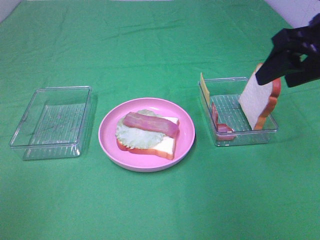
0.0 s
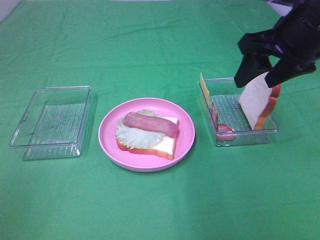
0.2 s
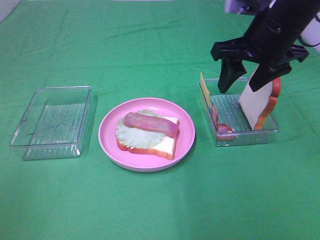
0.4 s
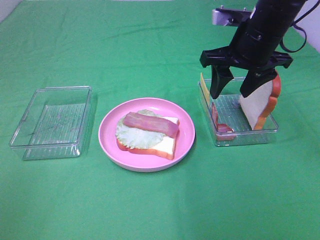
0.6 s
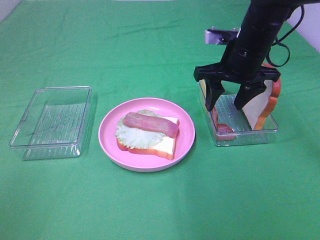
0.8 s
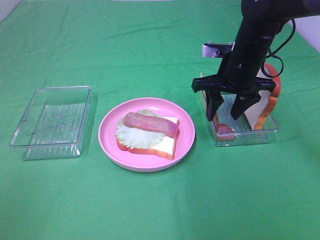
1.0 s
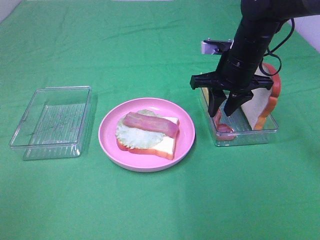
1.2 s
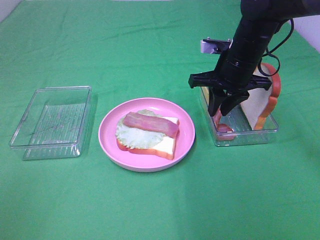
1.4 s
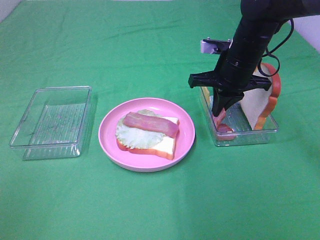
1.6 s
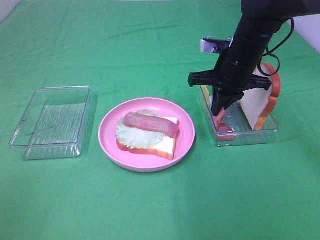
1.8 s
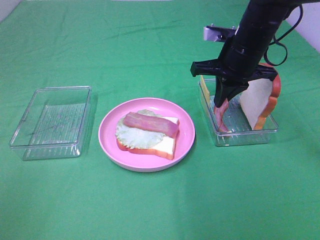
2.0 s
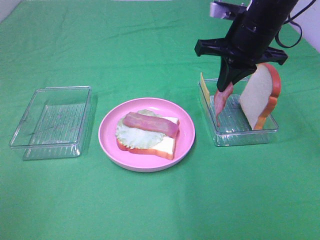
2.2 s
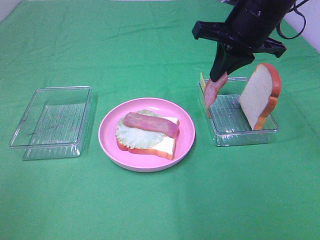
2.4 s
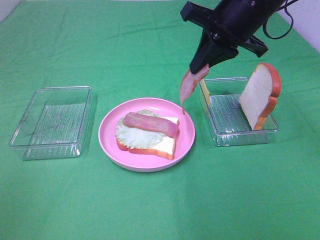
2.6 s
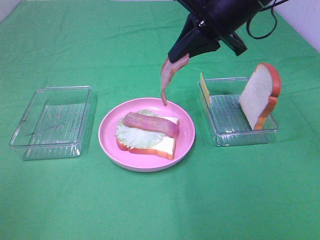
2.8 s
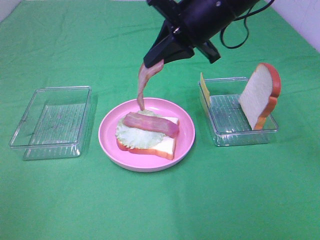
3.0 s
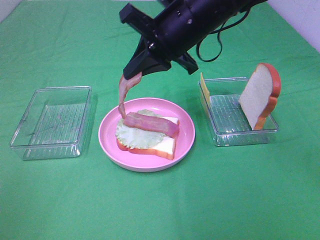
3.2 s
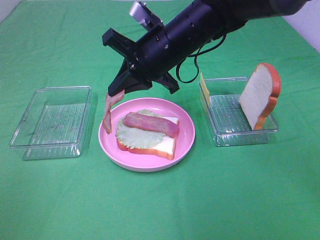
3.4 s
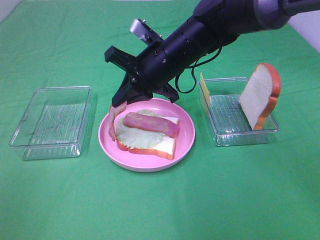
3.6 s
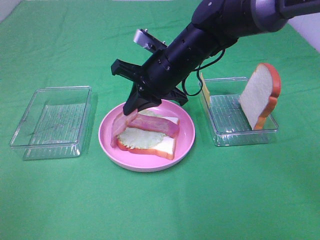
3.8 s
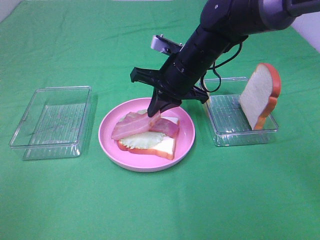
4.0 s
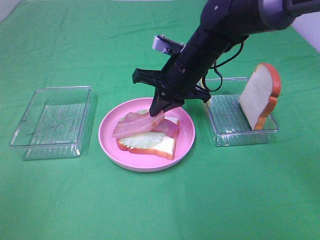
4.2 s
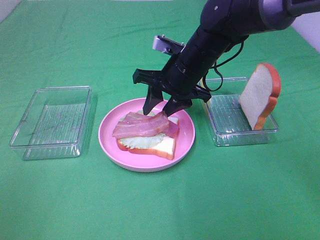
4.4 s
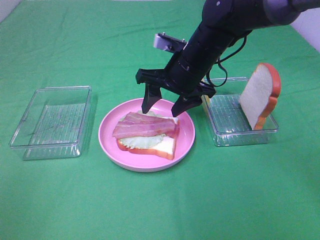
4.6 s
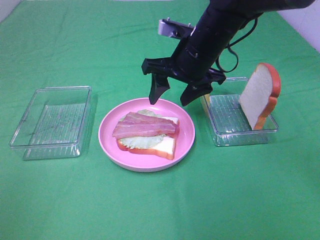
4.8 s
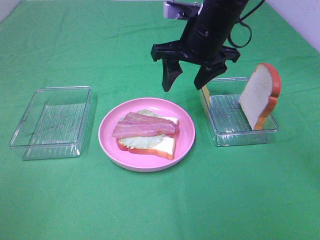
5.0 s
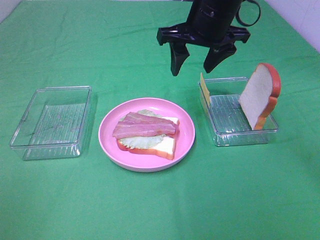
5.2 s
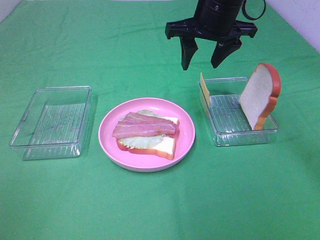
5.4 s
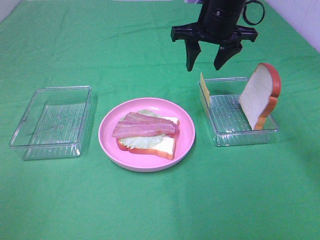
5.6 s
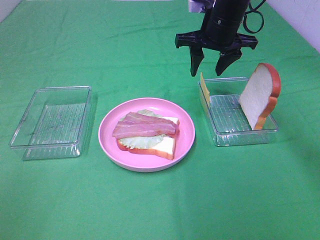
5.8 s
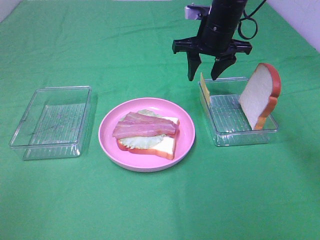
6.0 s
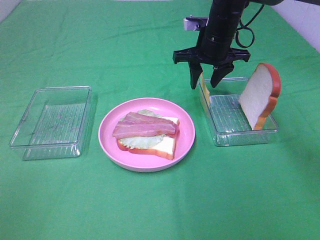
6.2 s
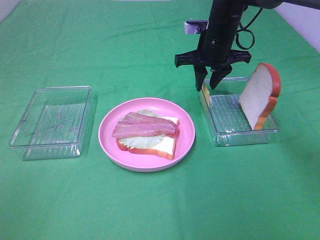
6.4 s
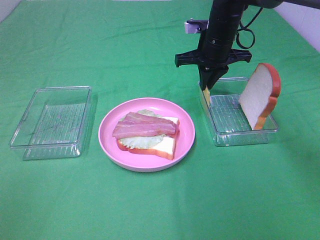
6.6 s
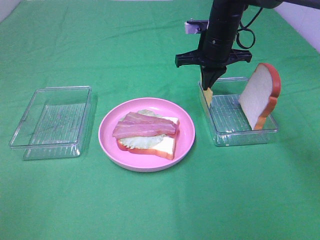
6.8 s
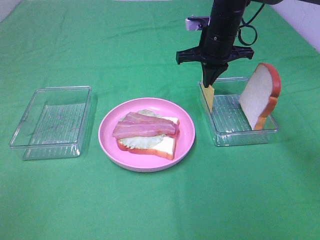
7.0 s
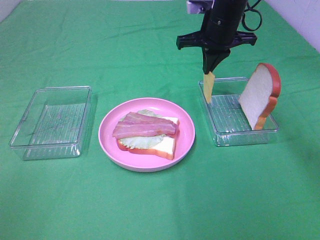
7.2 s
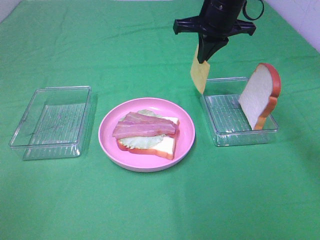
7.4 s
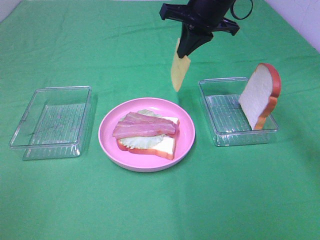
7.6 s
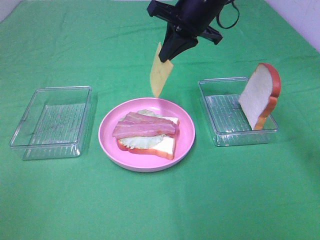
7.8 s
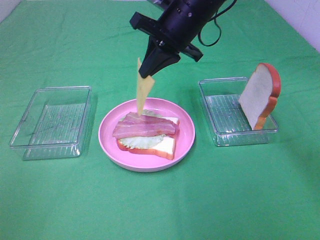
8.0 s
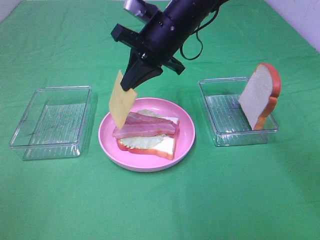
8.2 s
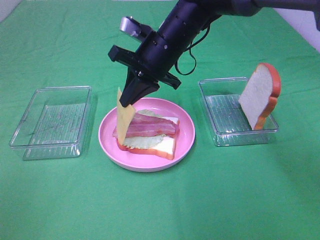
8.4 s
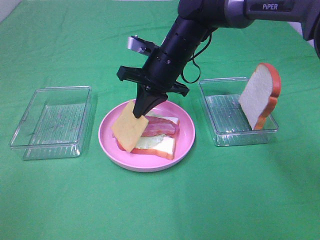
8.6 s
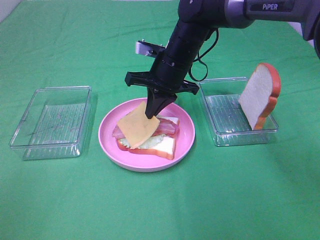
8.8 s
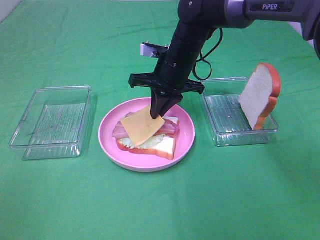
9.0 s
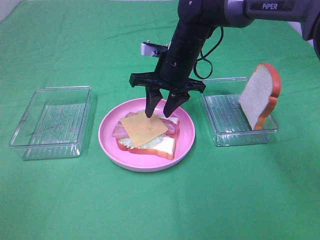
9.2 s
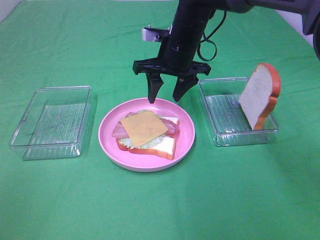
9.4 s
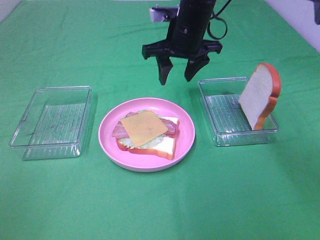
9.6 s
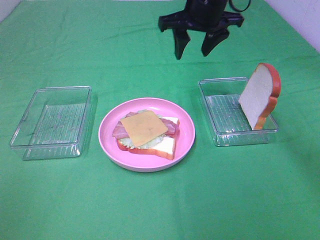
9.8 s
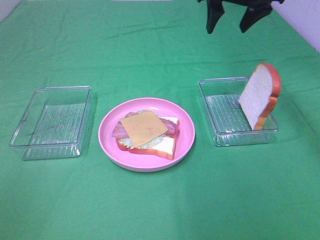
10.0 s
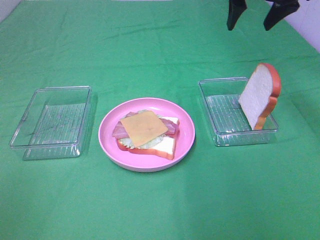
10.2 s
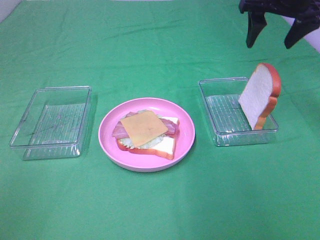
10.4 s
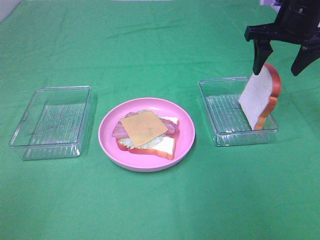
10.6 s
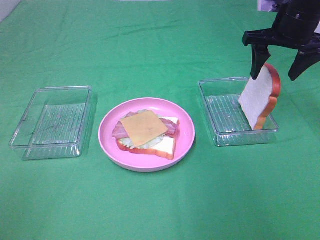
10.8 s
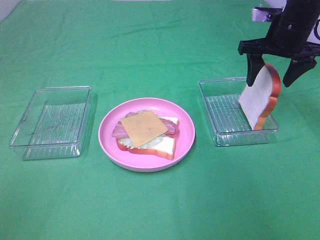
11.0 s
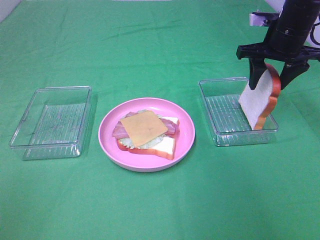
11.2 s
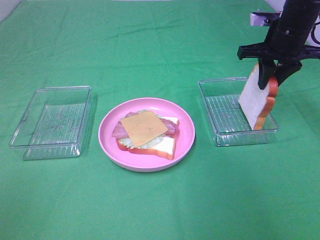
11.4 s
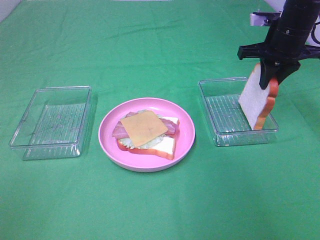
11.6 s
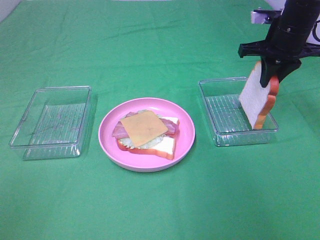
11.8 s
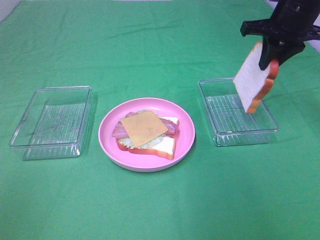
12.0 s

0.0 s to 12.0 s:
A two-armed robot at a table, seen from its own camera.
Task of the whole recording: Make sandwiches.
Step, 2.0 to 4.6 s: Right hand:place bacon on bacon.
Step, 4.8 to 6.8 s: Right hand:grab the cheese slice.
Step, 7.0 to 9.2 s: Right hand:place the cheese slice on top of the bacon.
Step, 9.4 to 11.4 s: Right hand:grab the bread slice.
0.0 to 1.6 s: The right gripper travels downward, forward and to the left by roughly 20 cm, and closes its fingers.
1.6 to 3.0 s: The right gripper goes approximately 10 cm upward and to the left.
3.0 to 4.4 s: The right gripper goes roughly 10 cm downward, and opens.
4.4 to 6.0 s: The right gripper is displaced forward and to the right by about 10 cm.
6.0 to 7.6 s: The right gripper goes roughly 5 cm upward, and closes its fingers.
7.6 to 9.0 s: The right gripper heads downward and to the left, covering some 10 cm.
9.0 to 10.4 s: The right gripper goes roughly 25 cm to the right and upward, and opens up.
10.4 to 12.0 s: The right gripper closes up.

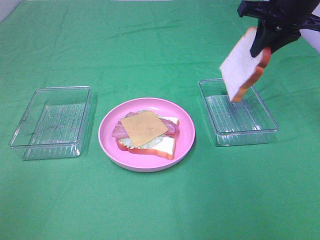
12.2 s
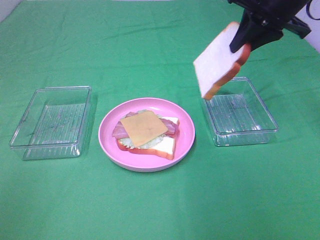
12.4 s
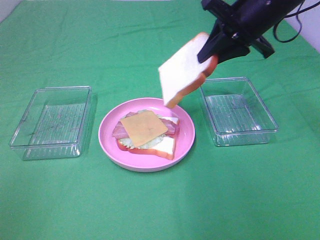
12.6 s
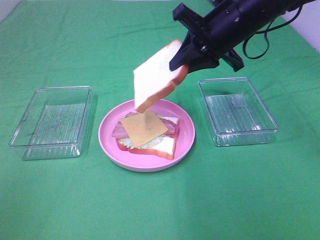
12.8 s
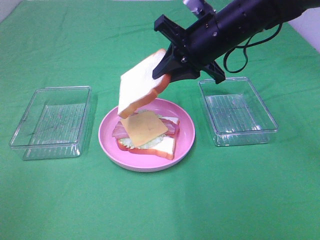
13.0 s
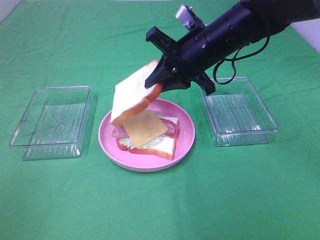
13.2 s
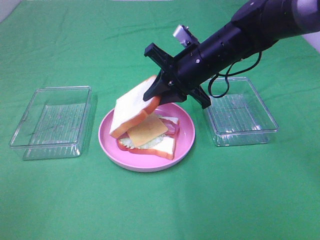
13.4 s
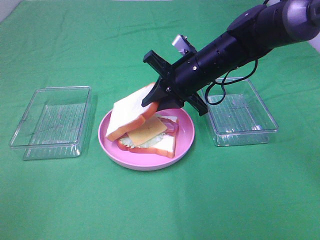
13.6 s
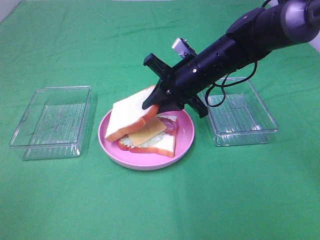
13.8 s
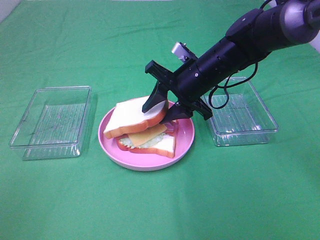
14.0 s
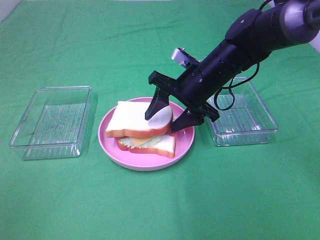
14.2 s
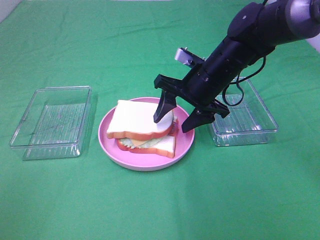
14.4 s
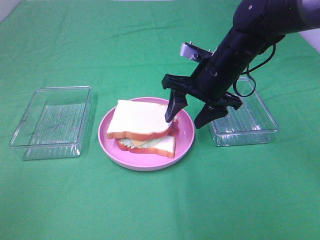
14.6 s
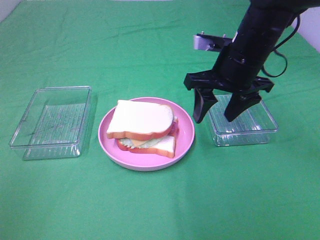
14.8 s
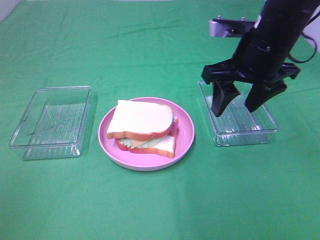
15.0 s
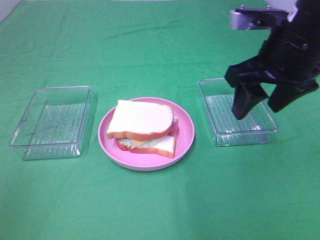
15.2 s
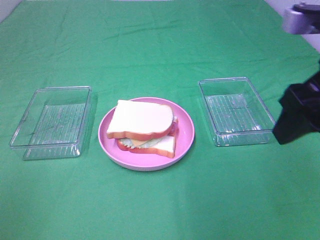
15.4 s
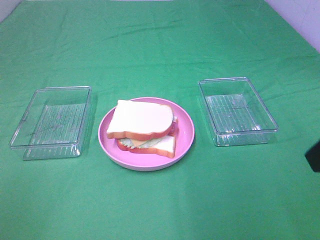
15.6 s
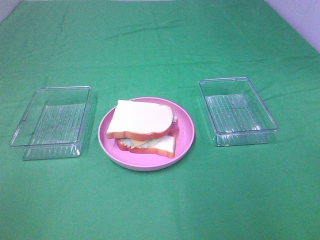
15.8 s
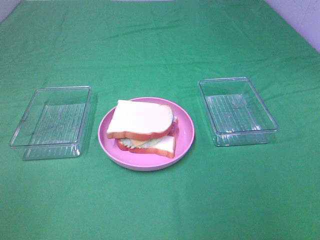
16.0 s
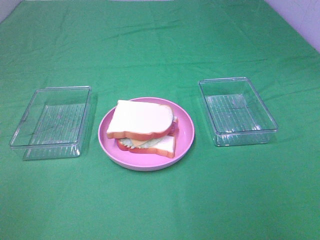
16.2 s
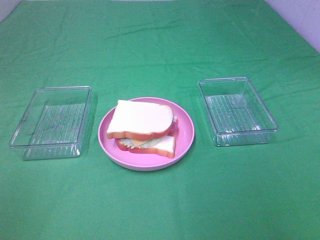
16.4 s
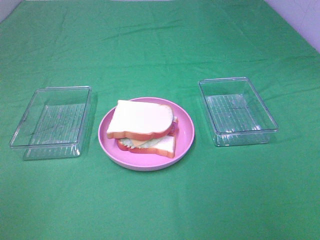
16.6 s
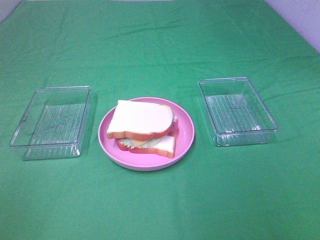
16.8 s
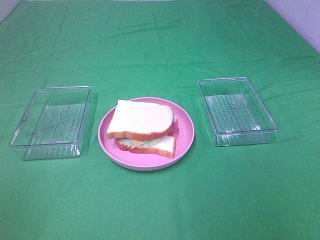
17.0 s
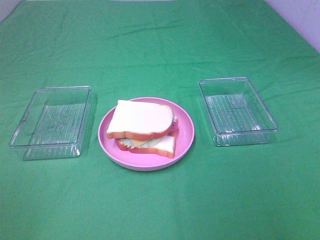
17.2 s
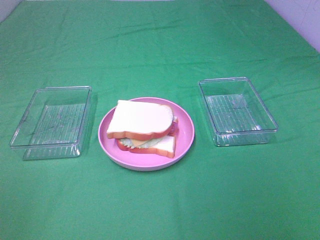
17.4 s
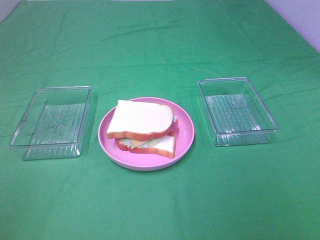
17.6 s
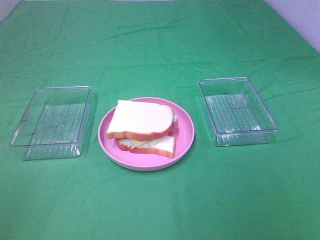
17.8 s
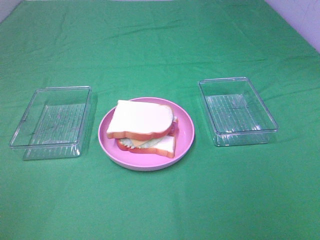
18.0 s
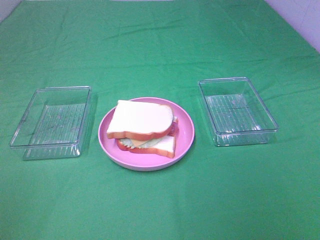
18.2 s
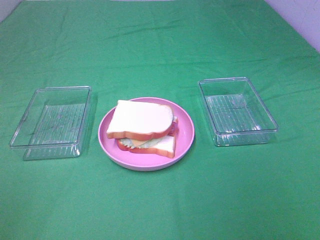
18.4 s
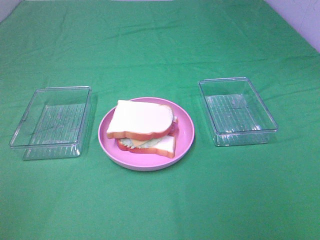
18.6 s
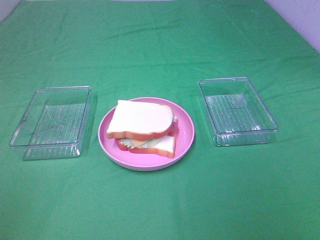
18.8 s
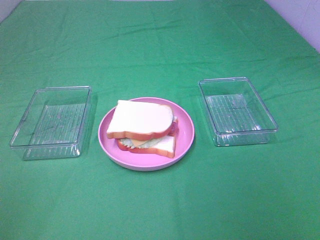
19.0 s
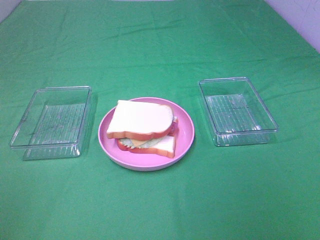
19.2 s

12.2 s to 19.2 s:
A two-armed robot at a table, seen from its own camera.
Task of the whole recording: Make sandwiches.
Step, 12.2 to 14.4 s: Right hand:place the bread slice on the cheese slice.
12.2 to 13.6 s: The right gripper travels downward and to the left by about 20 cm.
13.6 to 15.0 s: The right gripper travels upward, to the right and backward by about 15 cm, and opens.
15.0 to 16.4 s: The right gripper travels backward and to the right by roughly 35 cm.
17.8 to 19.2 s: Both grippers stay about where they are.

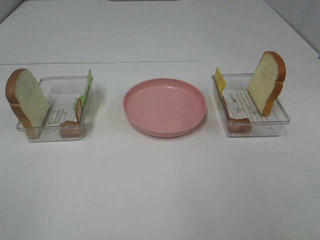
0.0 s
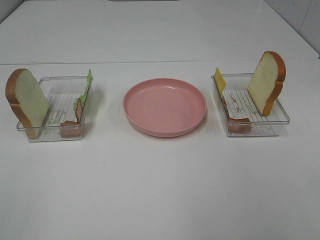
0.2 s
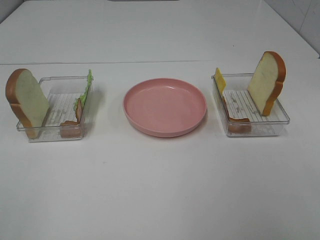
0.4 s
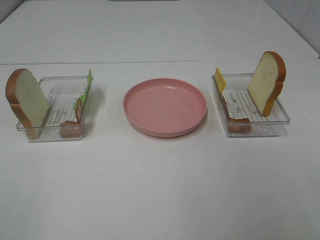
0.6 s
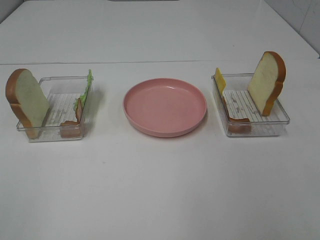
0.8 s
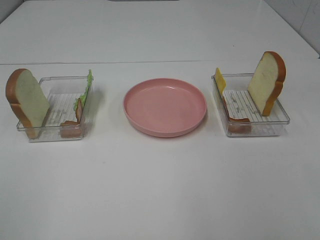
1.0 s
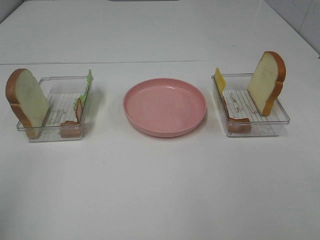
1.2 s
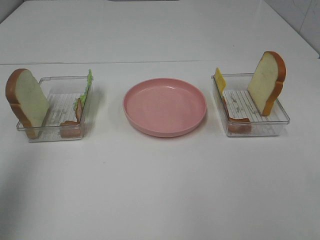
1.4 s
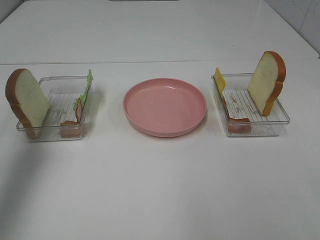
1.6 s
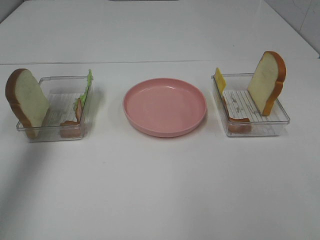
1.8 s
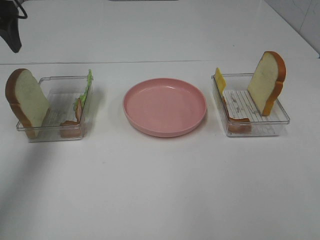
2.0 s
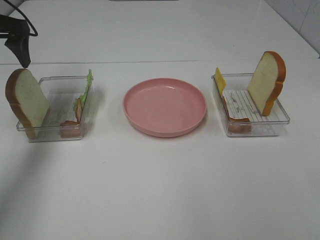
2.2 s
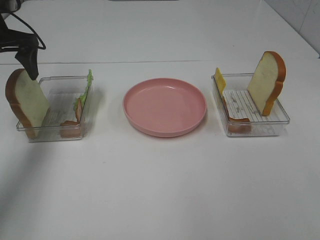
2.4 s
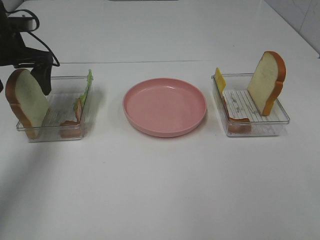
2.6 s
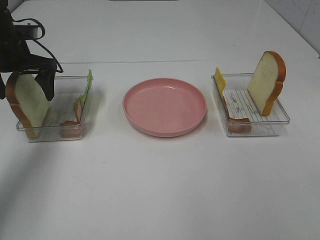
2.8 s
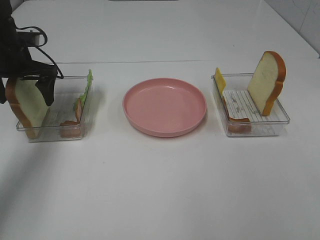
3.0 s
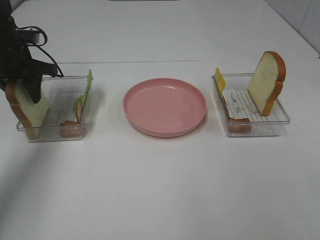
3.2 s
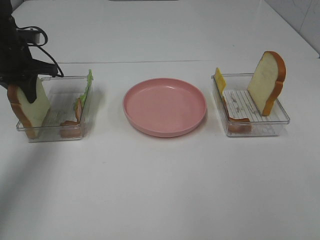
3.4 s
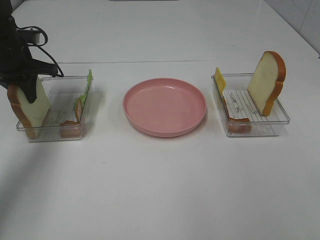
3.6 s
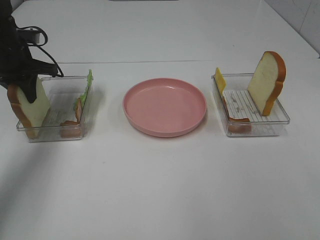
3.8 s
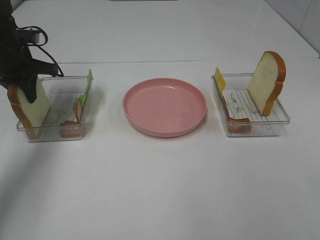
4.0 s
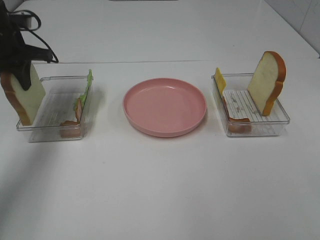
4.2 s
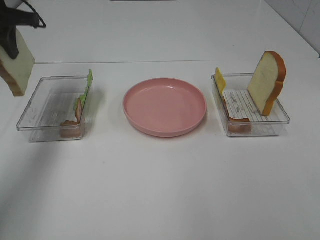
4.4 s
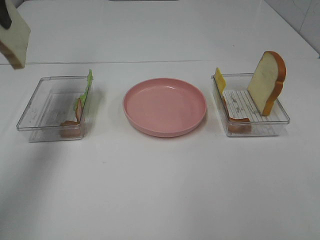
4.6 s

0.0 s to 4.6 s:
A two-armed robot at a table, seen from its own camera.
Task of the whole recording: Make sandwiches.
Step, 0.0 to 3.4 s: Left hand:grab the bread slice.
0.0 to 1.6 s: The left gripper moves forward, some 30 cm.
1.6 to 3.0 s: The left gripper is displaced downward and forward by roughly 25 cm.
3.0 to 4.6 s: The left gripper shifts about 15 cm upward, and closes its fingers.
